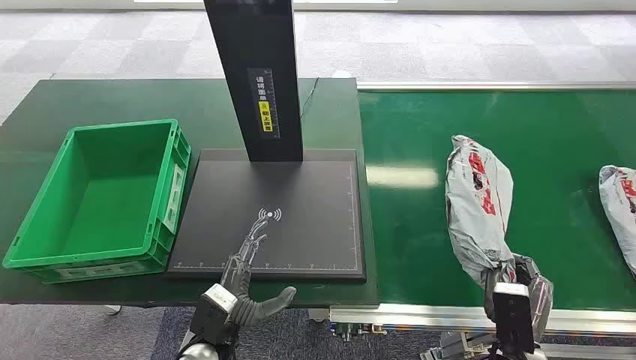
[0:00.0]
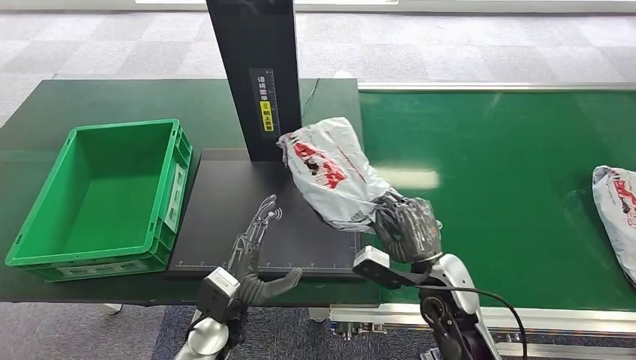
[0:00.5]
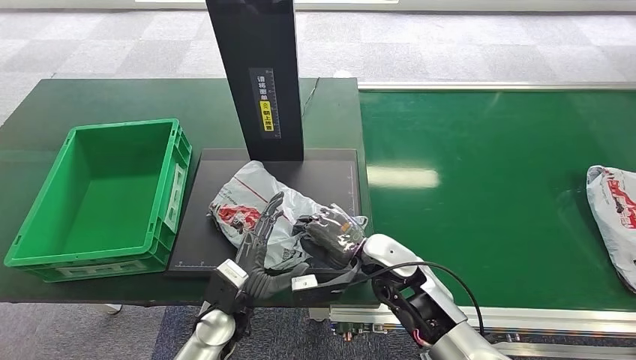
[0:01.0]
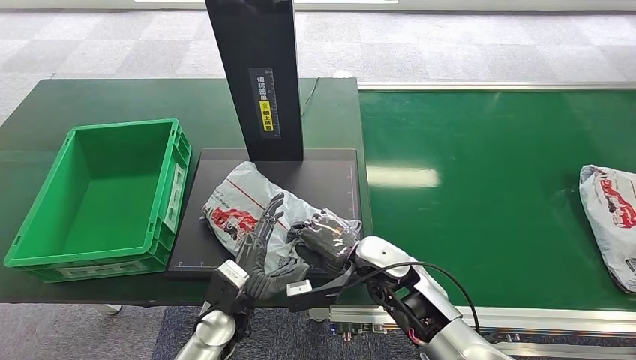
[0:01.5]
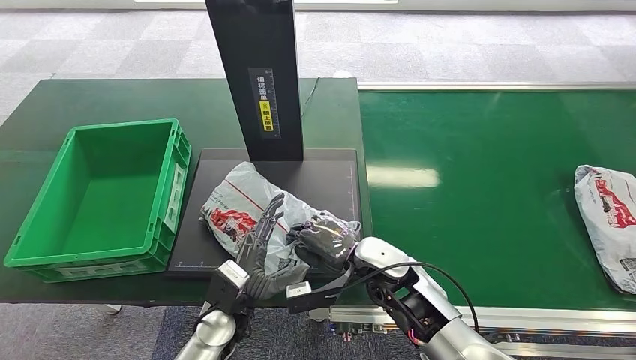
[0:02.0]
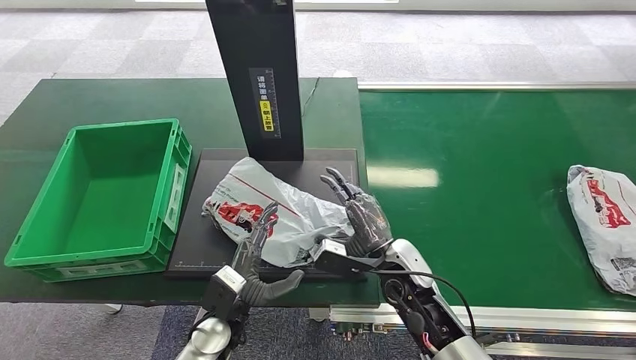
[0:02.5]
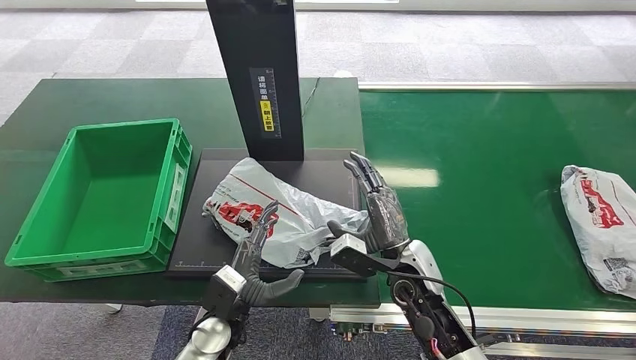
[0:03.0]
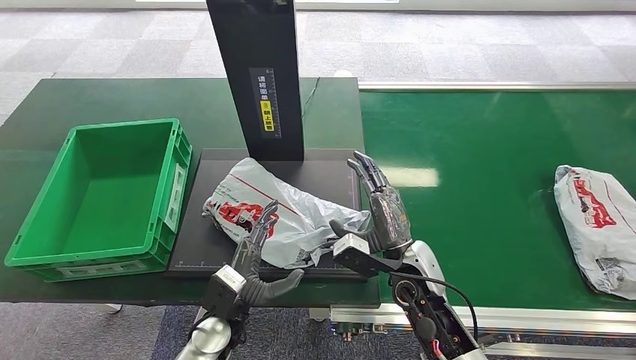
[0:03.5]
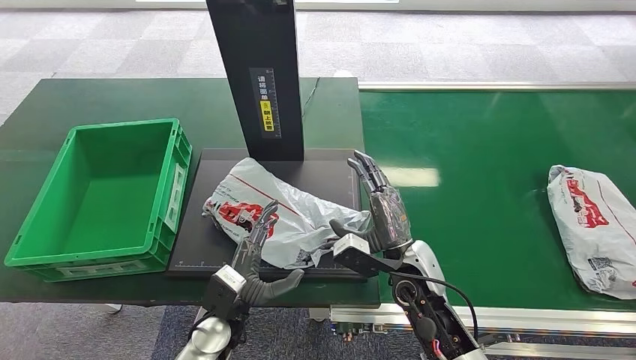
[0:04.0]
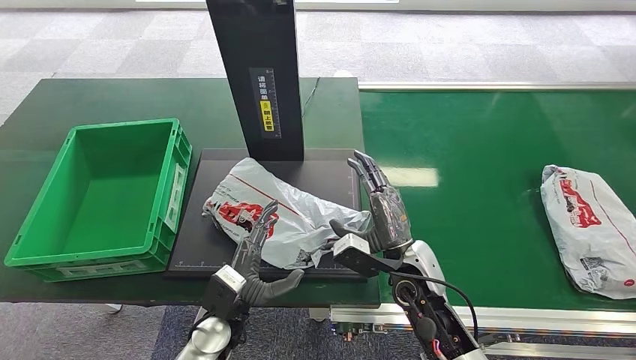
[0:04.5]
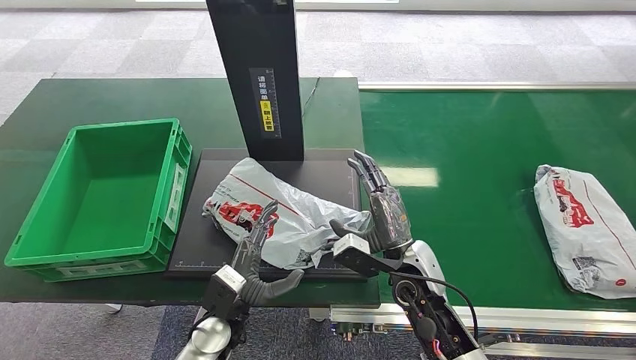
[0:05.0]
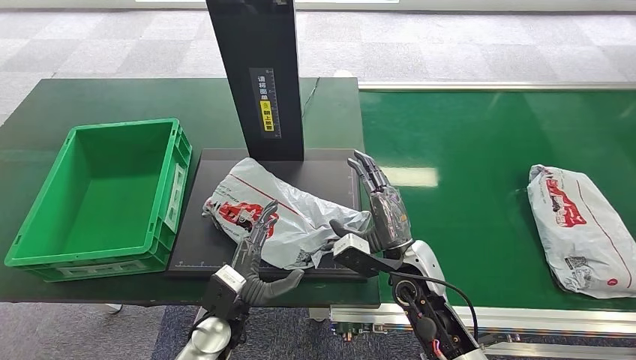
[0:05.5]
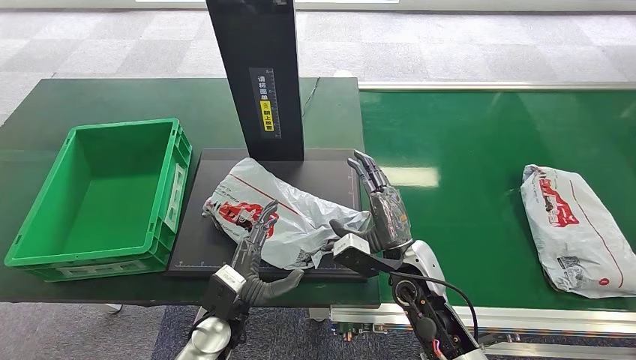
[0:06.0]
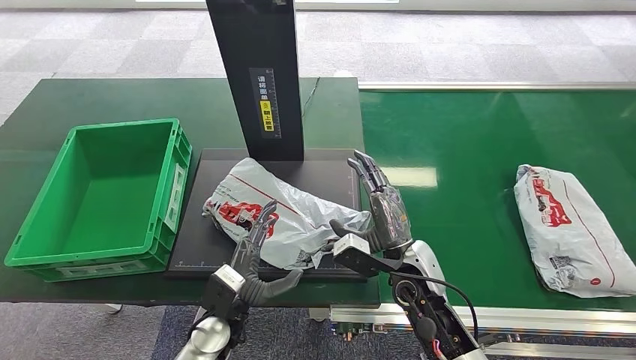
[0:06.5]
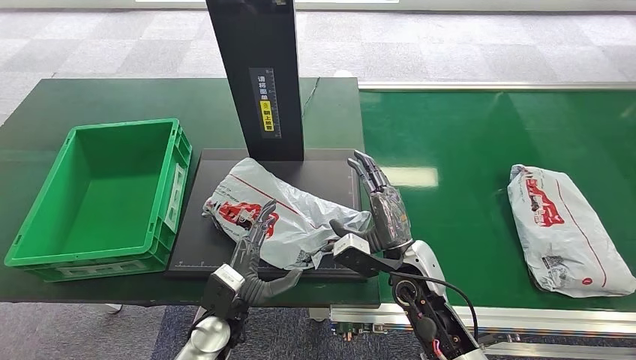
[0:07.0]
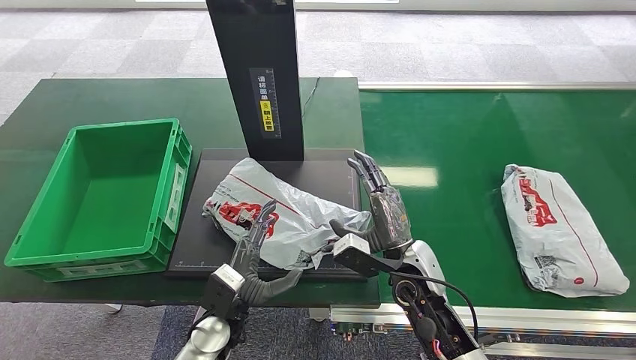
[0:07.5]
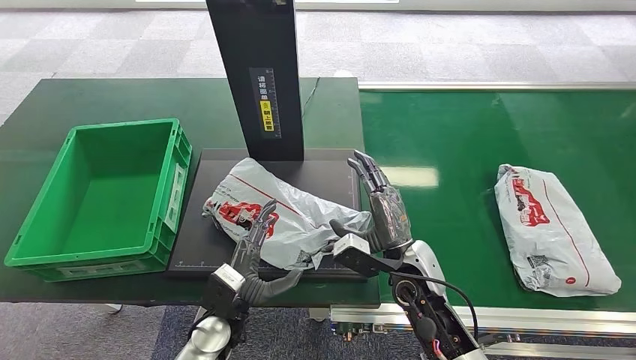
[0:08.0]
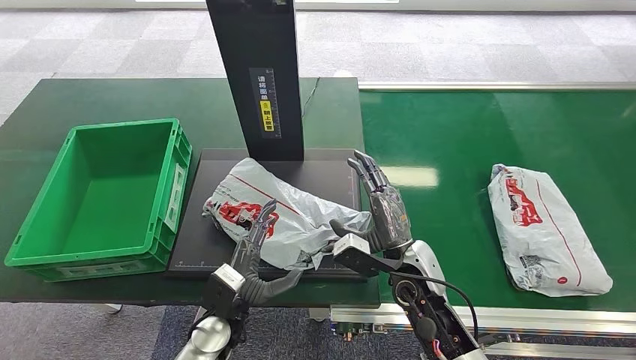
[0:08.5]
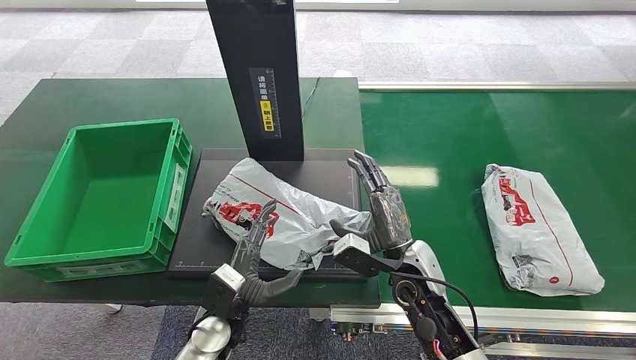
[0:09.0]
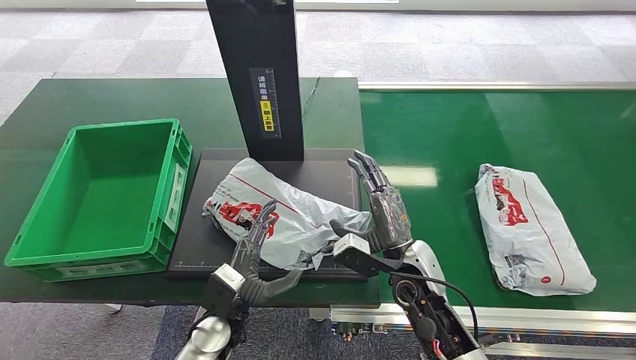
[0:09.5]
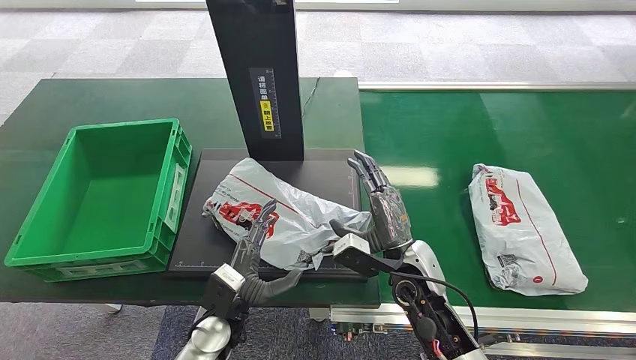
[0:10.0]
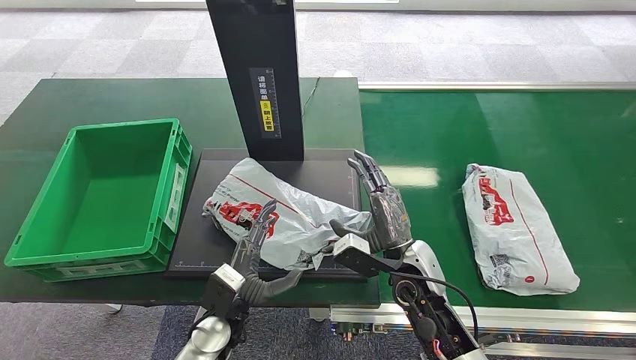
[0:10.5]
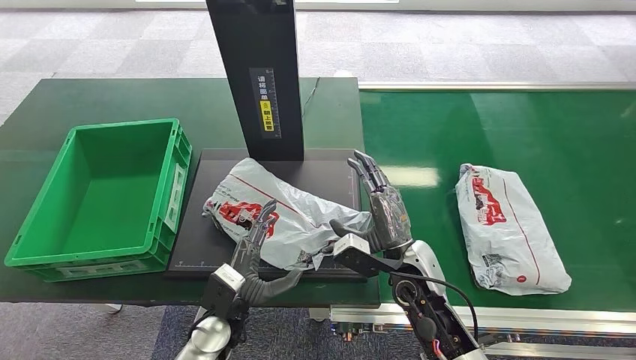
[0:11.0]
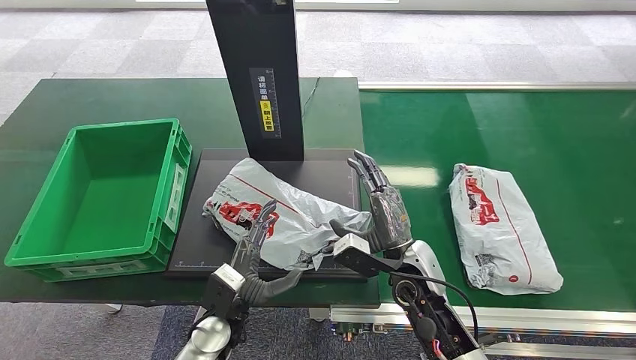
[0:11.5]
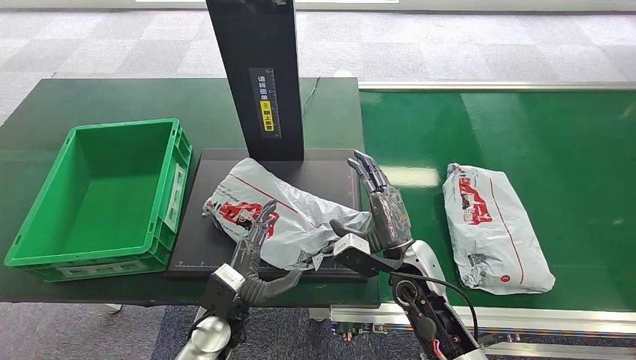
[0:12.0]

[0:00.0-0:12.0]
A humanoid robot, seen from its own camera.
0:04.0 to 0:12.0: The two hands keep their place.

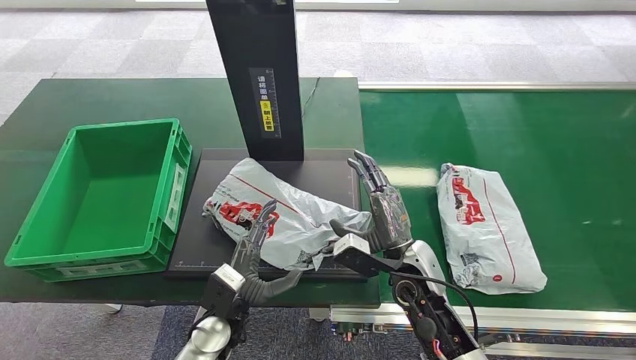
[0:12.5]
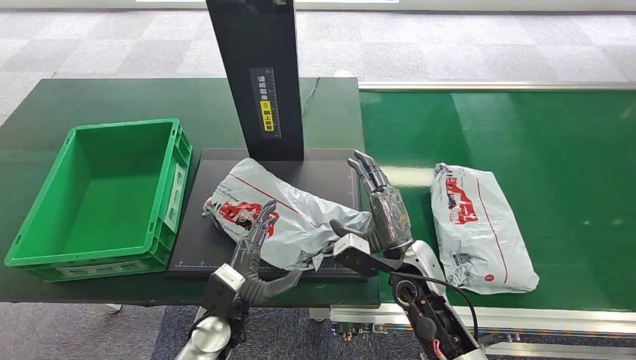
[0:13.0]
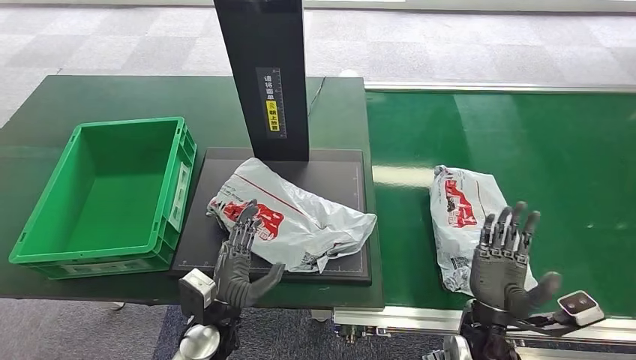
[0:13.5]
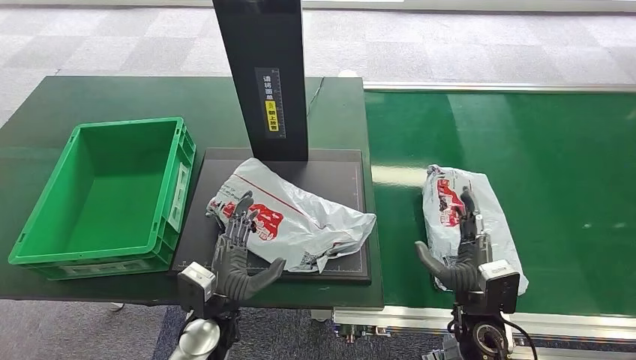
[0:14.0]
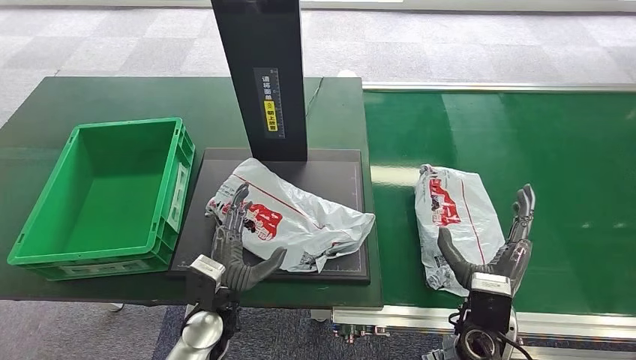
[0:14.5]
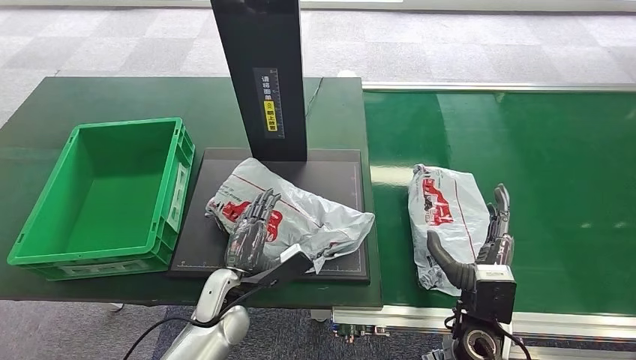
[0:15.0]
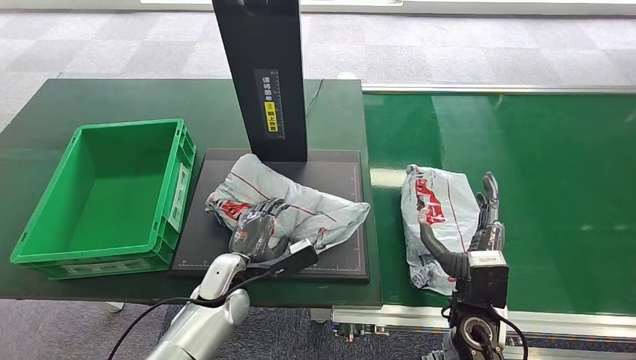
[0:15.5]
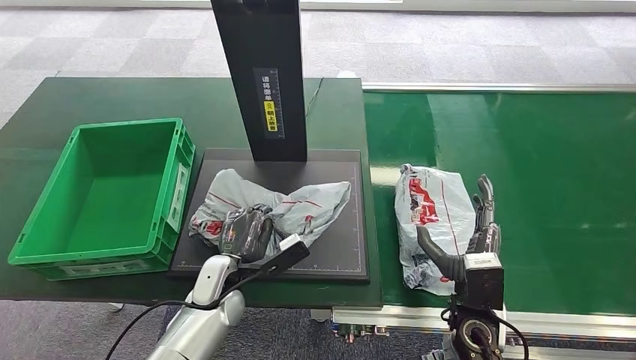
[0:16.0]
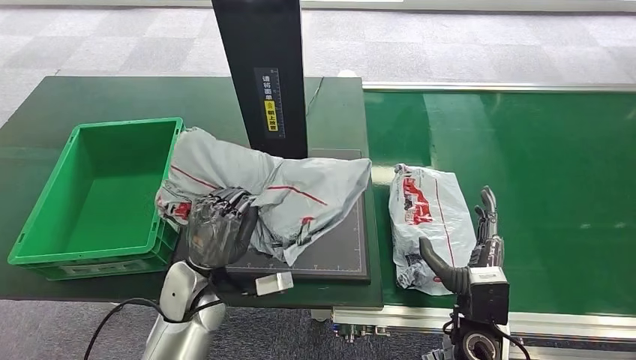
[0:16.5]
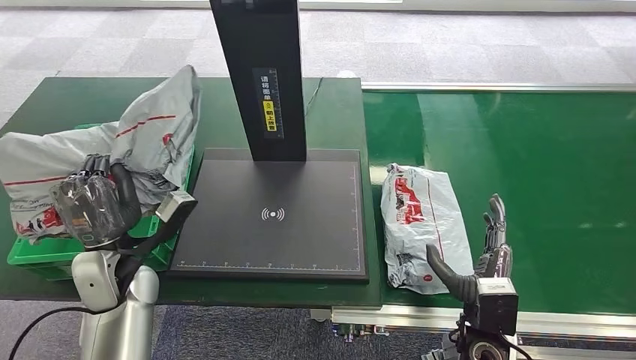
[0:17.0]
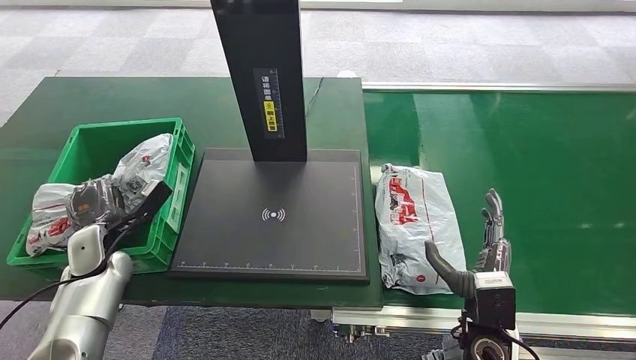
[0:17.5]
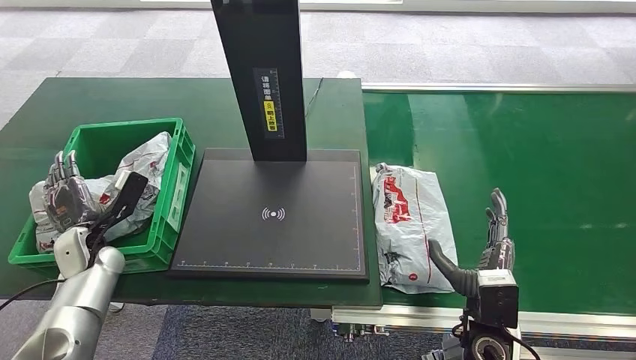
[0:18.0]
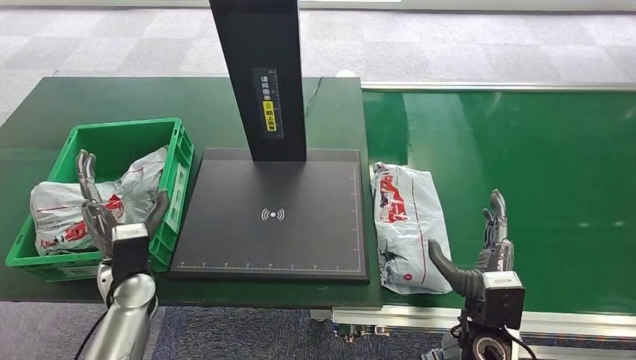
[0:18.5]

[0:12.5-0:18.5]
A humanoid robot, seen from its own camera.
0:14.5 to 0:16.5: The left hand ends up roughly 5 cm from where it was.
